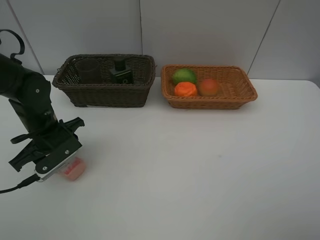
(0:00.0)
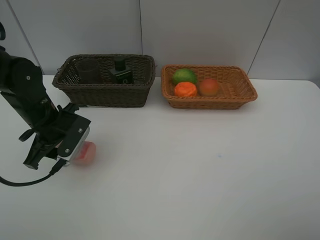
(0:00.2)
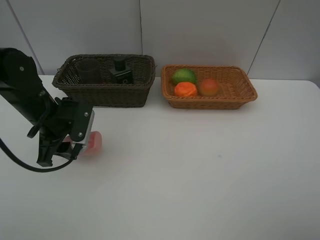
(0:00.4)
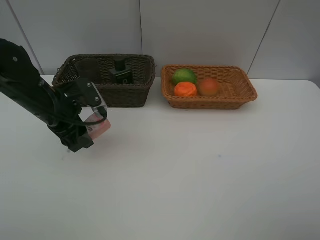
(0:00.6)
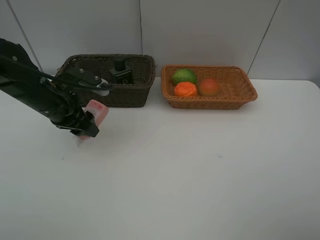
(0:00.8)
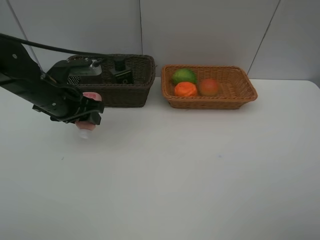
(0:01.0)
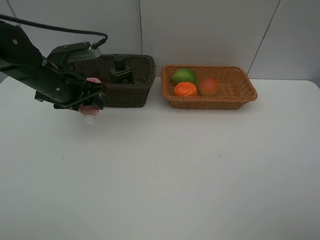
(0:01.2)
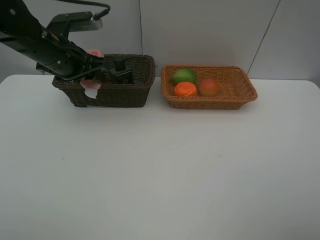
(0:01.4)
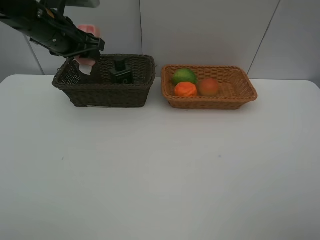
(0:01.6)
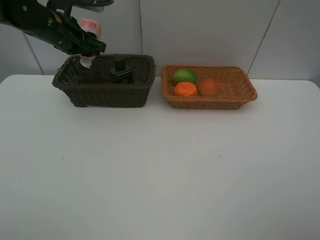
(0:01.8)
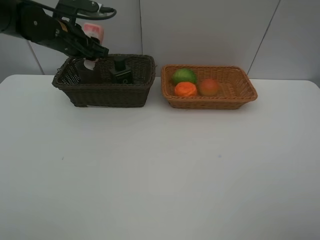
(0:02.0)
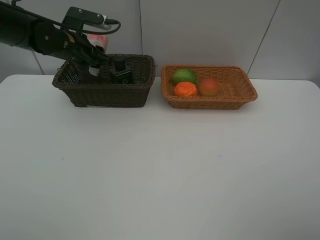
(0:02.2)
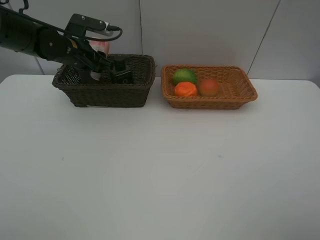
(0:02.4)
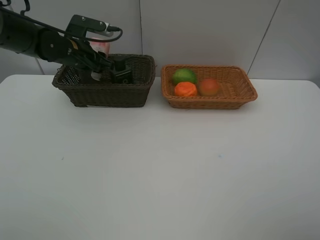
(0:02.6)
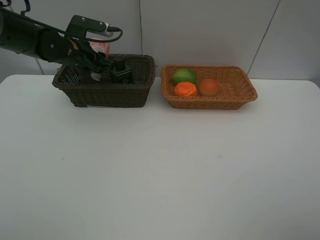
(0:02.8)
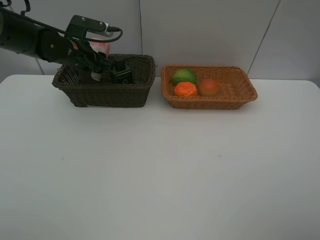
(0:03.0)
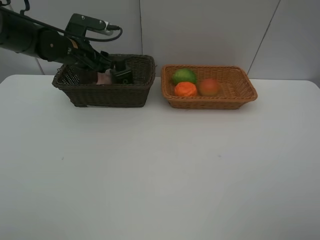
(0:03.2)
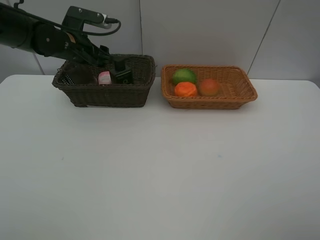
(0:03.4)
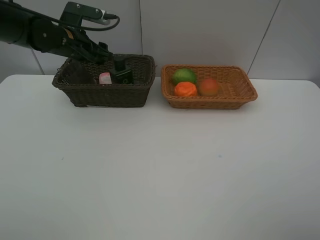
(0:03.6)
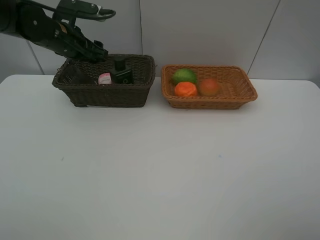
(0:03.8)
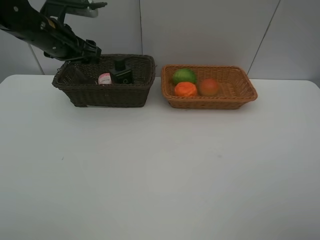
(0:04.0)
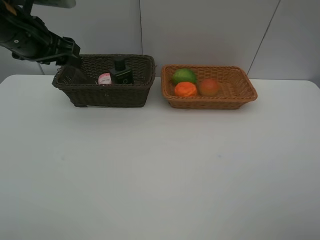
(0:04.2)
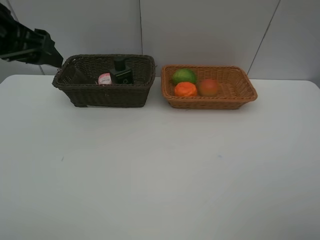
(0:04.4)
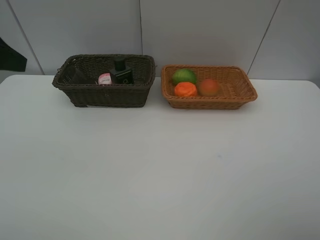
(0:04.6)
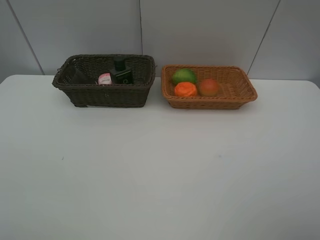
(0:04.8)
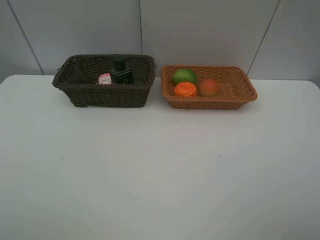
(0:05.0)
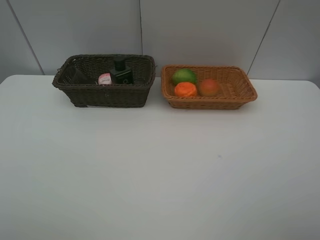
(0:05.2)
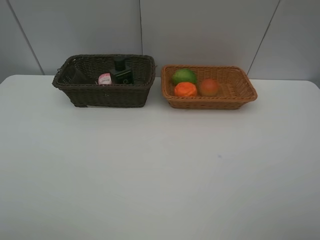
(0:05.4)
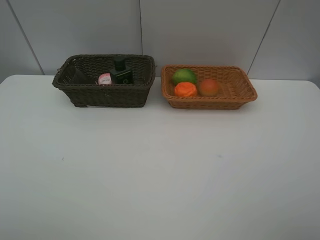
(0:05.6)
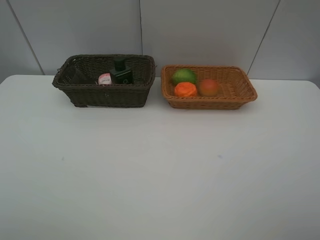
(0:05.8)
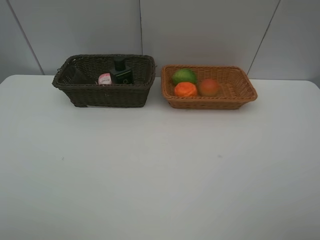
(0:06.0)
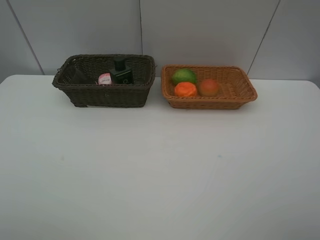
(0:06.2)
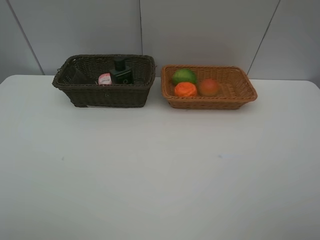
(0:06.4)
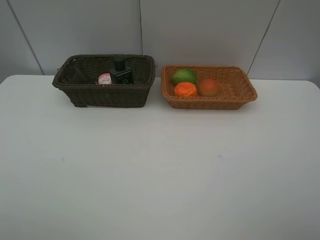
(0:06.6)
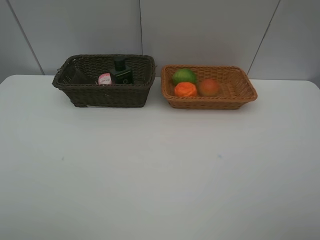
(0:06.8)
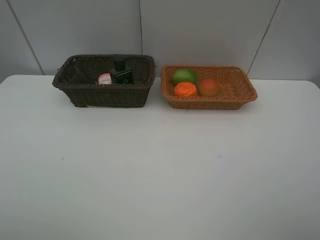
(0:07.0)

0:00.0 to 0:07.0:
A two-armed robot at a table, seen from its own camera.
Task of the whole recording: place multiple objects separately in different baskets.
0:00.0 to 0:01.4: The left gripper travels upward and forward by about 15 cm.
0:01.4 to 0:02.8: The left gripper heads forward and downward, covering roughly 10 cm.
0:02.8 to 0:04.2: The left gripper moves backward and upward, roughly 15 cm.
0:04.2 to 0:05.6: The left gripper shifts about 30 cm backward.

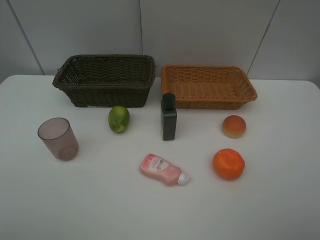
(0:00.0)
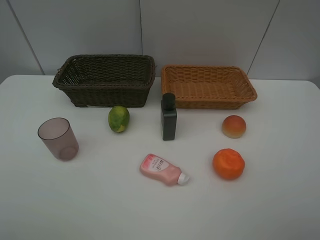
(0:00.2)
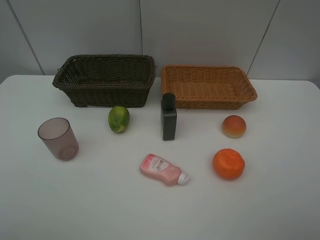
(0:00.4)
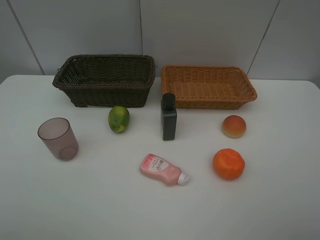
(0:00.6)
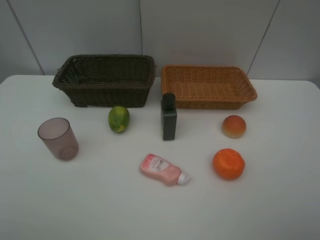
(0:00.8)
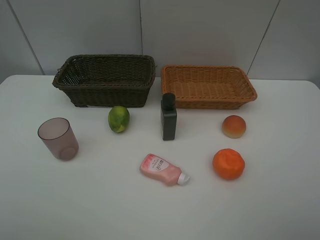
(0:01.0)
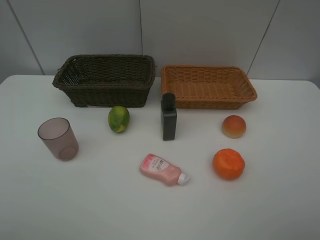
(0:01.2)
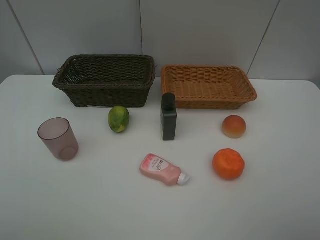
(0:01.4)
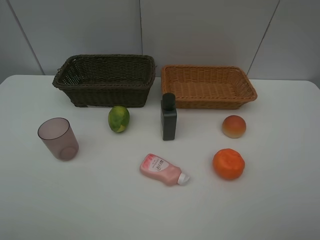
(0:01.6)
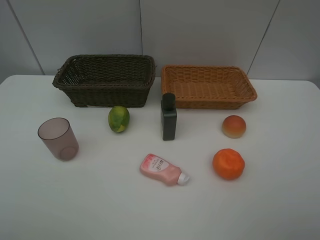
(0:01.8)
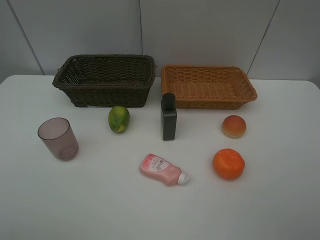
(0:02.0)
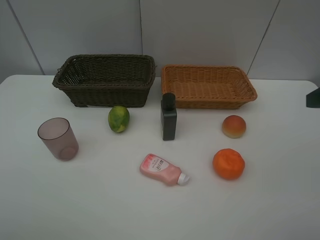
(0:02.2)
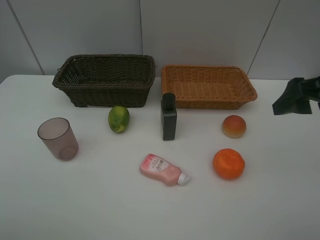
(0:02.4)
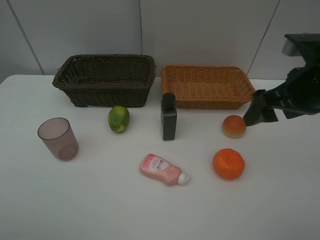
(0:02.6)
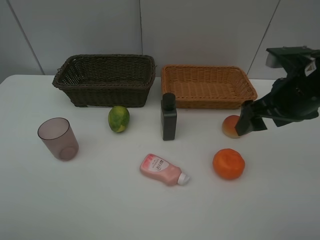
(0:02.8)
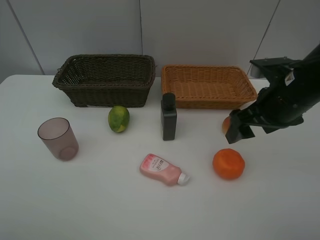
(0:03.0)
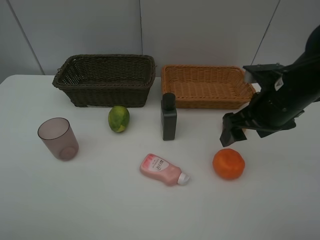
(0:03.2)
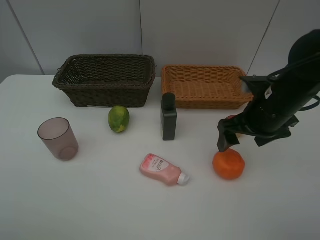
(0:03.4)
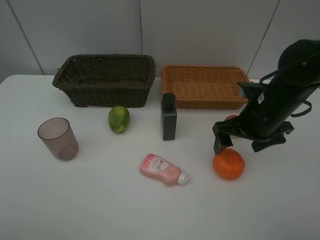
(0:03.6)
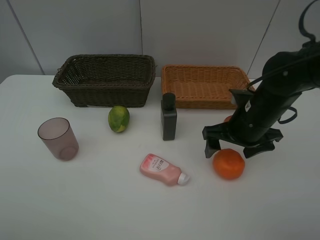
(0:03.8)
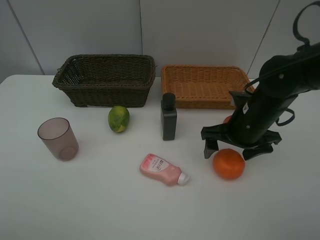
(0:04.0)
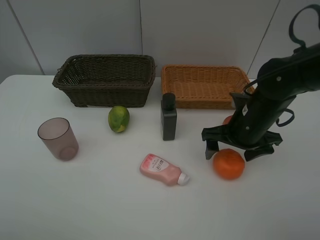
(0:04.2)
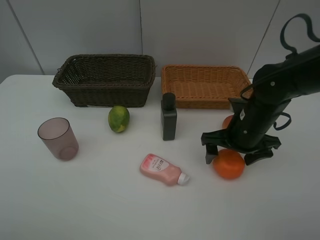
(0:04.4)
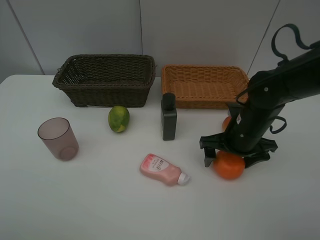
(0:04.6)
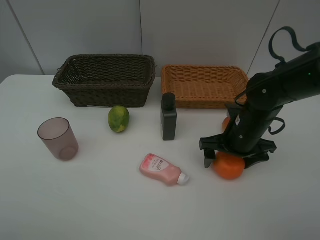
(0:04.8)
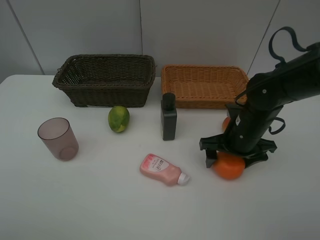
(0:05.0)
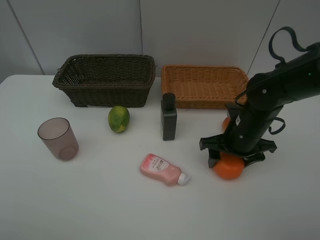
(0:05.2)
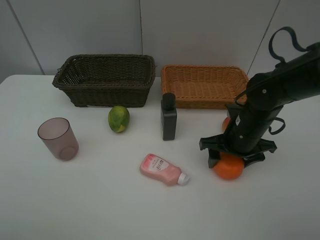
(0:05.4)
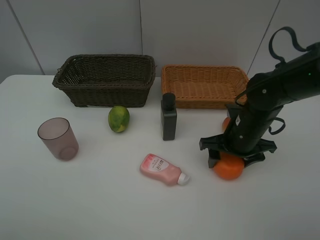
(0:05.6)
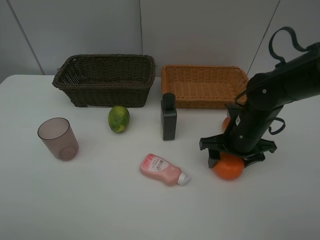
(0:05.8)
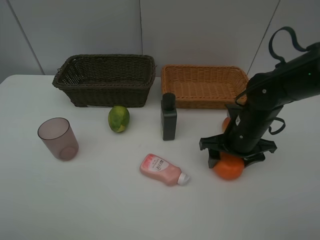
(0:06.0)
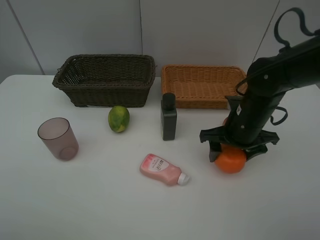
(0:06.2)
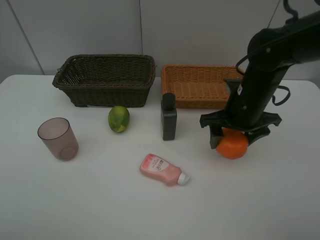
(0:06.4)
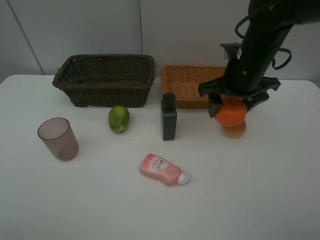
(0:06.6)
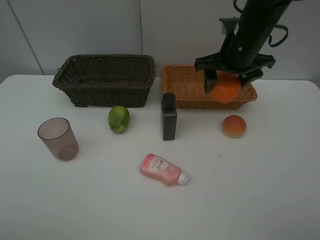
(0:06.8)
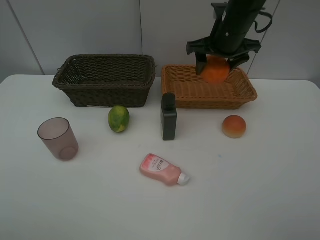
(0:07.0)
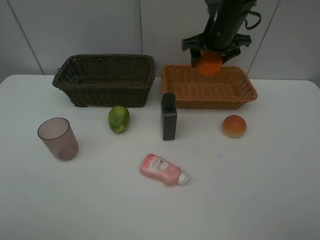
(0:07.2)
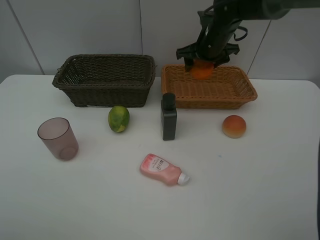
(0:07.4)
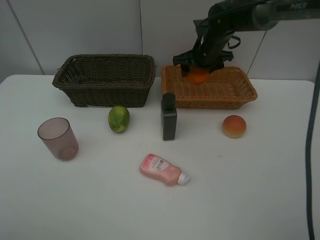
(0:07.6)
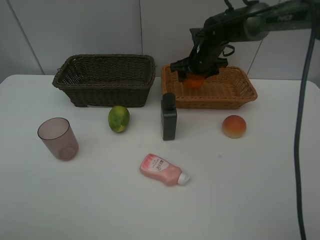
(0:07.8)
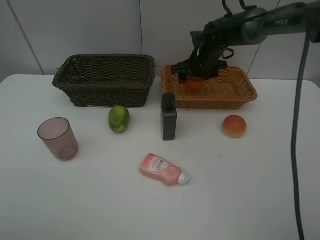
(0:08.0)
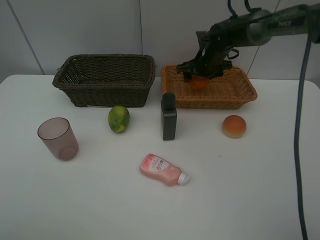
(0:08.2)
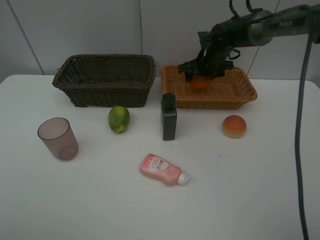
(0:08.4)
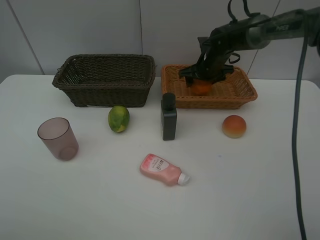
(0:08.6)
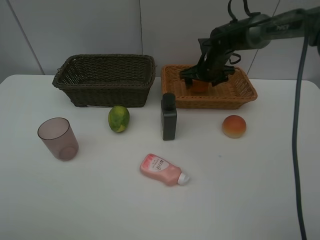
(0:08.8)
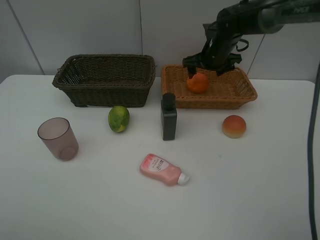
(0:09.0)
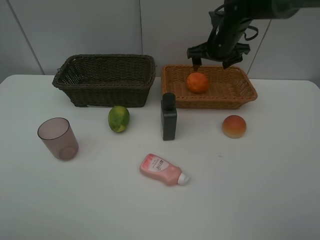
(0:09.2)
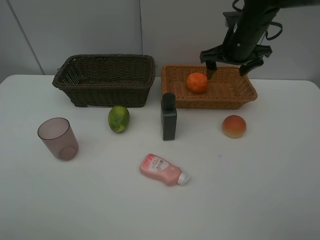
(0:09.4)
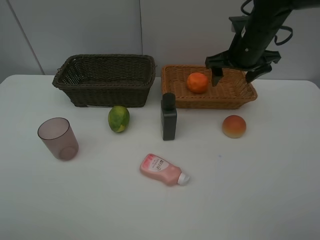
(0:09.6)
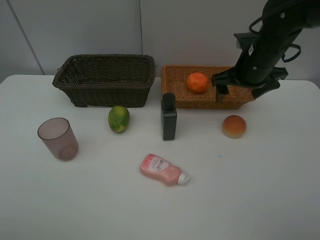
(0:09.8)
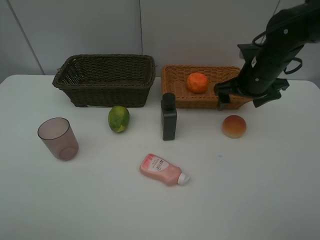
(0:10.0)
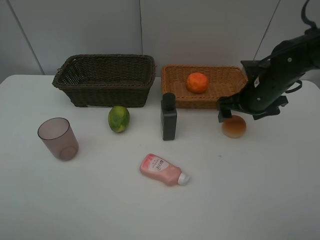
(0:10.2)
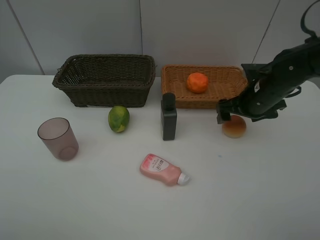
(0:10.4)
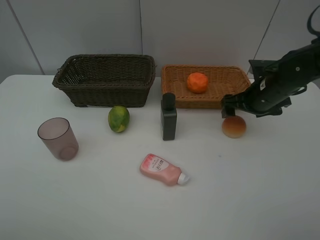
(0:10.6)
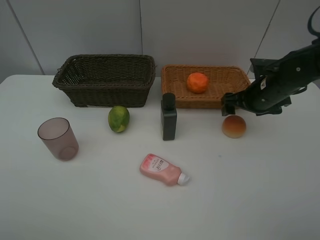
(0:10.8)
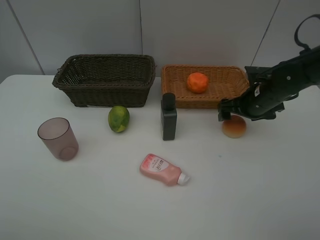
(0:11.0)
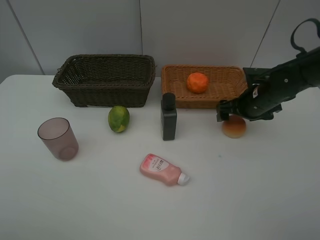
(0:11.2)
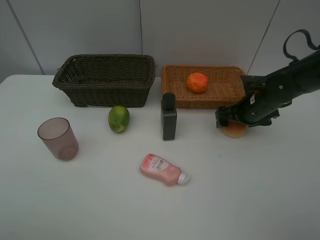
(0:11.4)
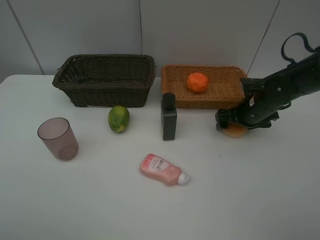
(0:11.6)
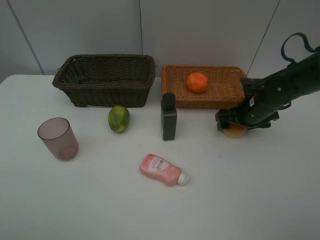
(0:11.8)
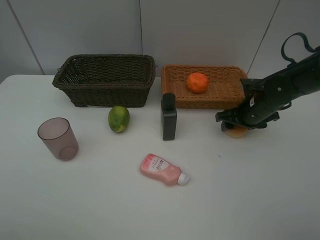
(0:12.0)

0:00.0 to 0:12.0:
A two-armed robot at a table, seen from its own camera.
Task of the whole recording: place multiple objects separately in different baskets.
0:00.0 to 0:01.6: Neither gripper changes place.
0:01.6 to 0:03.0: The right gripper shifts roughly 25 cm forward.
0:03.0 to 0:04.4: The right gripper shifts roughly 10 cm downward.
0:04.4 to 0:06.0: The right gripper closes its fingers.
0:06.0 to 0:07.6: The right gripper moves forward, roughly 20 cm.
0:07.6 to 0:09.0: The grippers stay close to where they were, moving slightly.
0:09.0 to 0:10.4: The right gripper is displaced backward and to the right by about 15 cm.
0:10.4 to 0:12.0: The right gripper goes approximately 5 cm downward, and closes.

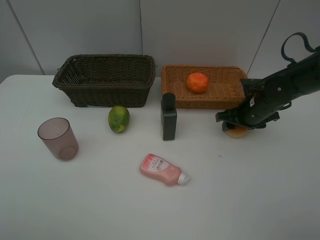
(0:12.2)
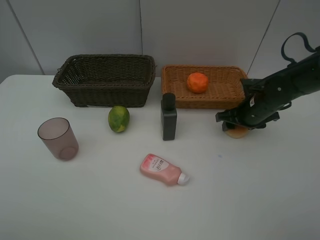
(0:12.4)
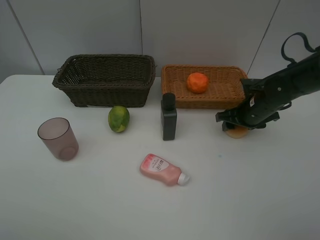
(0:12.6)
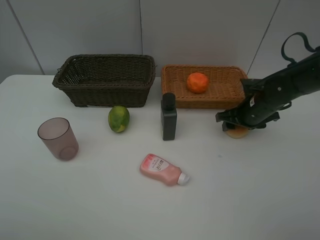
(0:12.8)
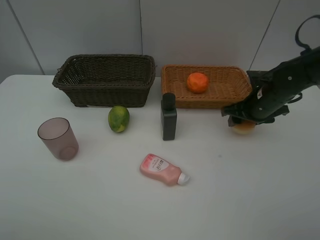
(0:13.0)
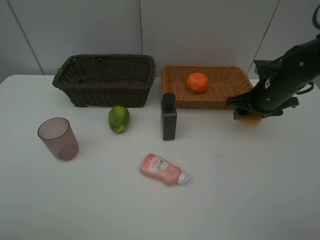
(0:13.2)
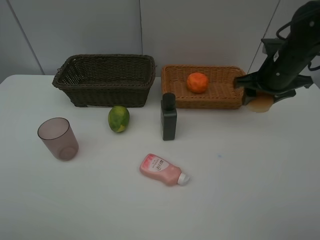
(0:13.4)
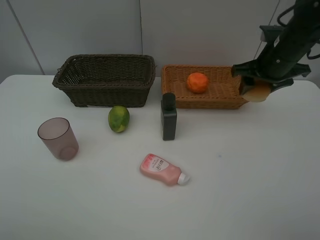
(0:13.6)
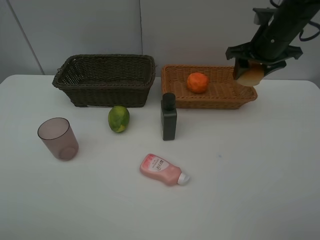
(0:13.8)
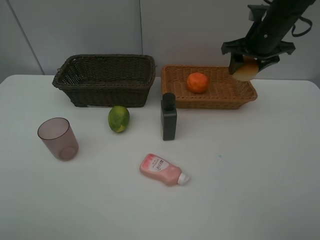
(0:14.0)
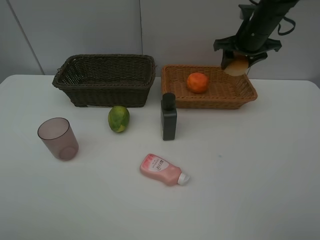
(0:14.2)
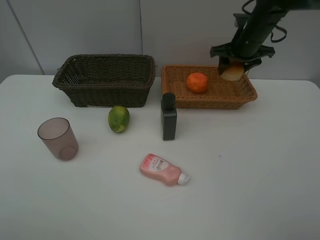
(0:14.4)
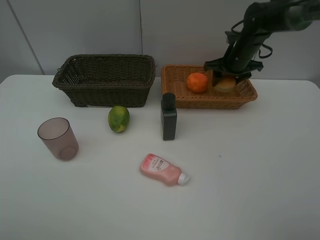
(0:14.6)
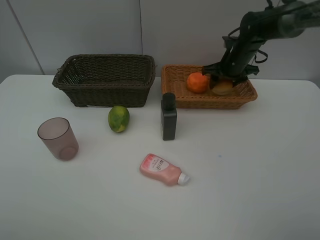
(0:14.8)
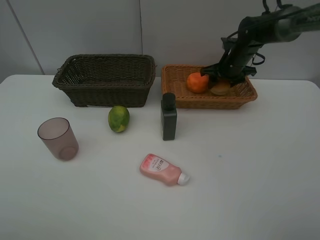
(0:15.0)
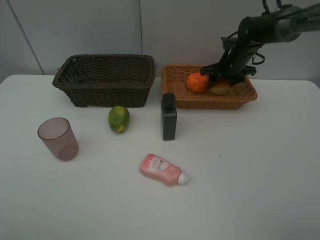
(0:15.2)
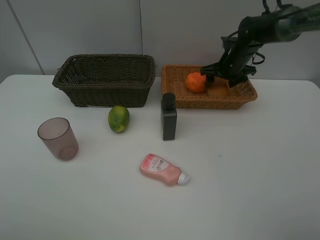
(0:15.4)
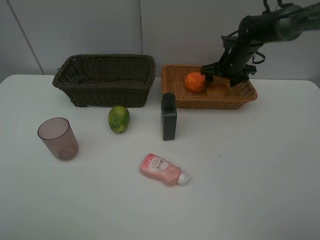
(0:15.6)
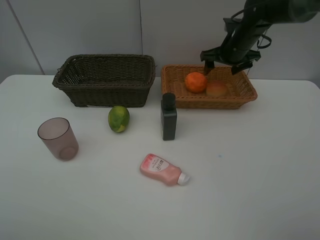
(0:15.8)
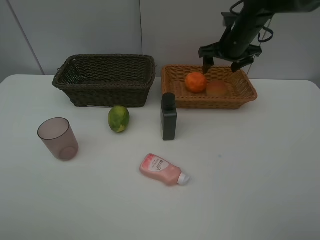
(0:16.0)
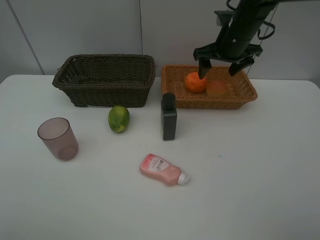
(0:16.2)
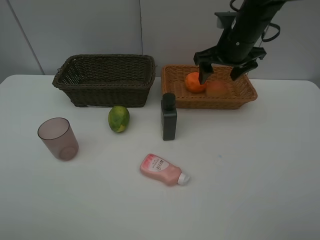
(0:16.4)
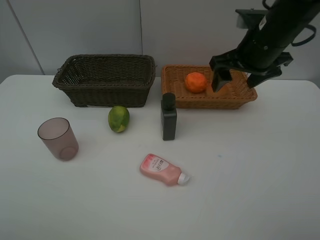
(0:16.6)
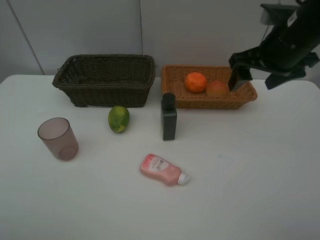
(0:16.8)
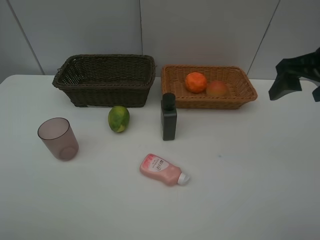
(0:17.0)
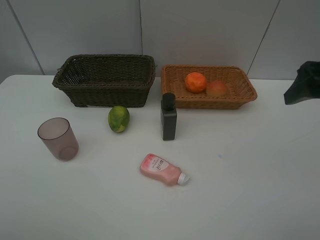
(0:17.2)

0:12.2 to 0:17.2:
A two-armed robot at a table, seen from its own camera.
Task of the whole recording: place multiple objects separately in different baskets.
0:12.2 to 0:13.8: The right gripper shifts approximately 15 cm upward.
0:13.8 to 0:15.6: The right gripper is displaced downward and forward by some 15 cm, and opens.
0:15.6 to 0:17.2: The right gripper moves backward and upward, approximately 35 cm.
